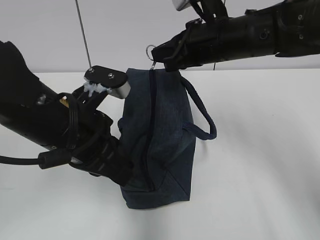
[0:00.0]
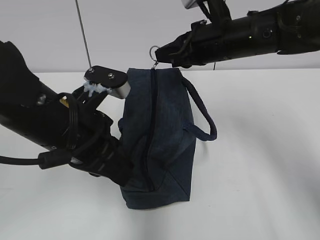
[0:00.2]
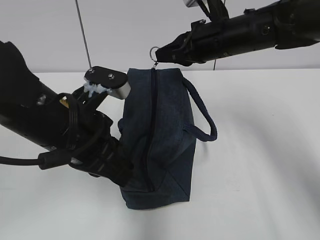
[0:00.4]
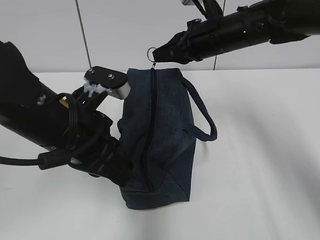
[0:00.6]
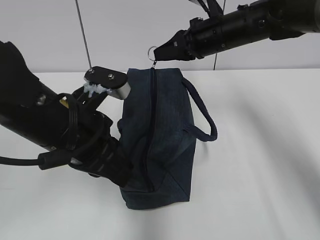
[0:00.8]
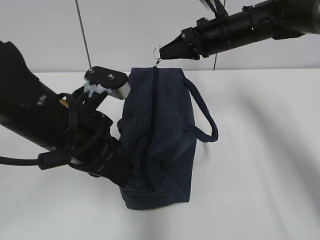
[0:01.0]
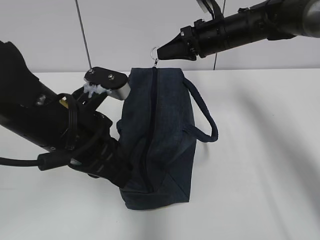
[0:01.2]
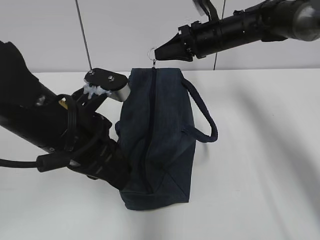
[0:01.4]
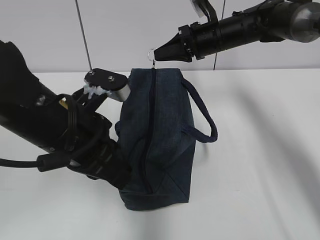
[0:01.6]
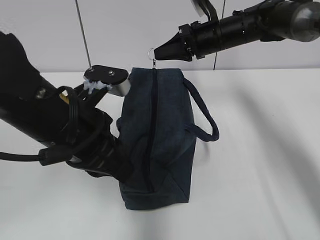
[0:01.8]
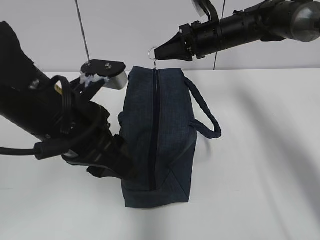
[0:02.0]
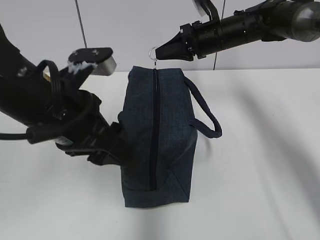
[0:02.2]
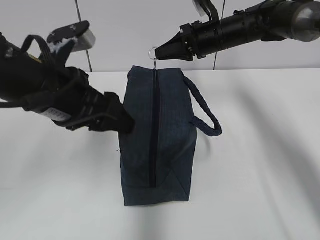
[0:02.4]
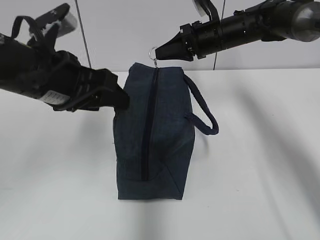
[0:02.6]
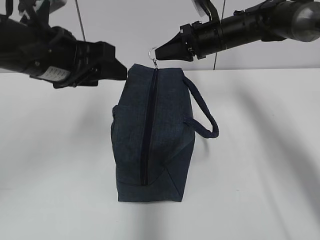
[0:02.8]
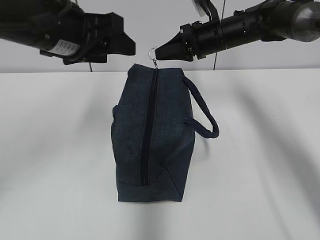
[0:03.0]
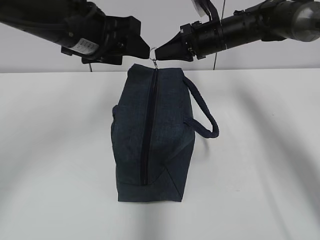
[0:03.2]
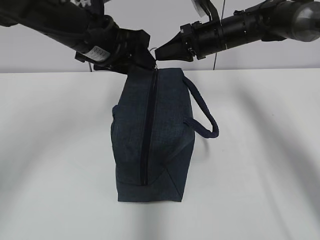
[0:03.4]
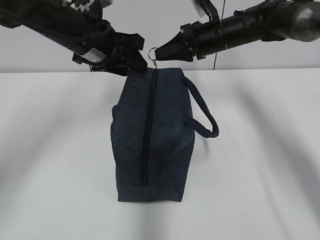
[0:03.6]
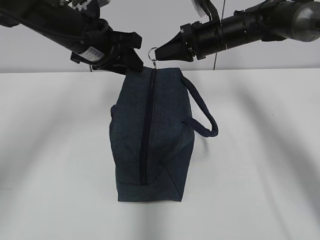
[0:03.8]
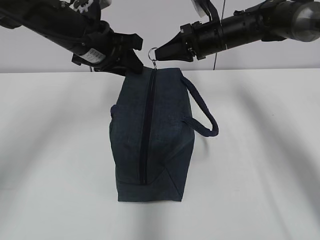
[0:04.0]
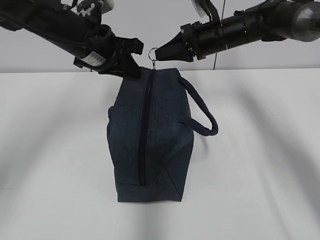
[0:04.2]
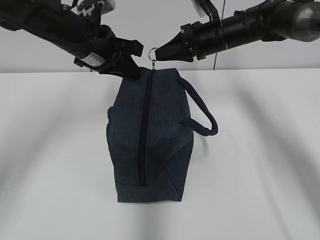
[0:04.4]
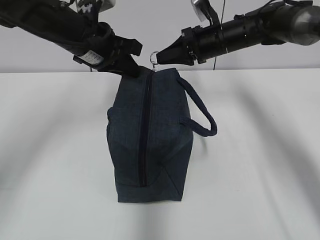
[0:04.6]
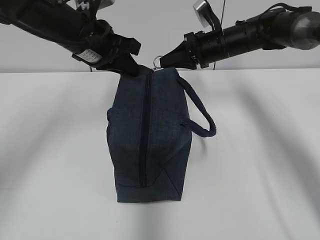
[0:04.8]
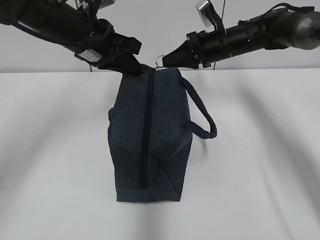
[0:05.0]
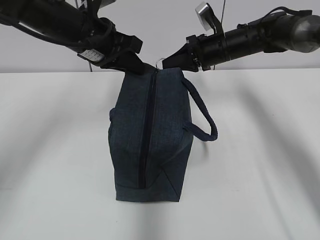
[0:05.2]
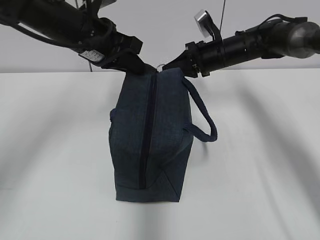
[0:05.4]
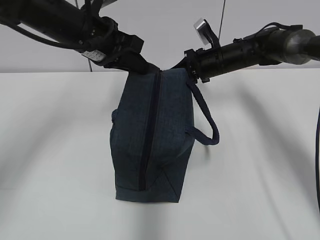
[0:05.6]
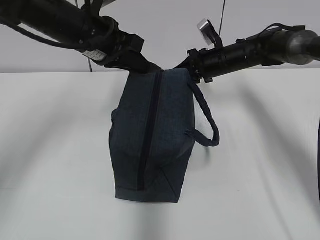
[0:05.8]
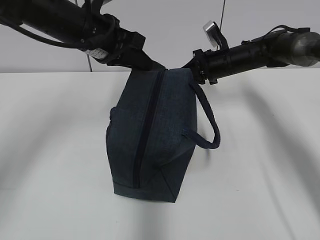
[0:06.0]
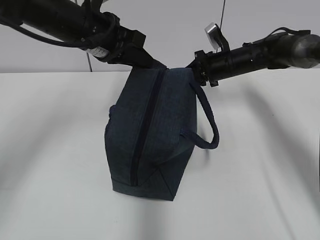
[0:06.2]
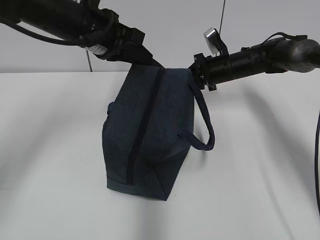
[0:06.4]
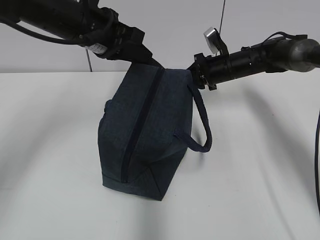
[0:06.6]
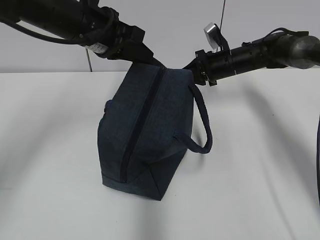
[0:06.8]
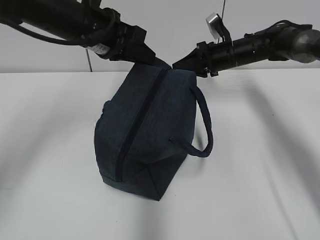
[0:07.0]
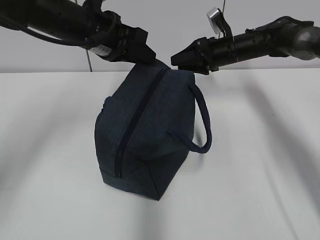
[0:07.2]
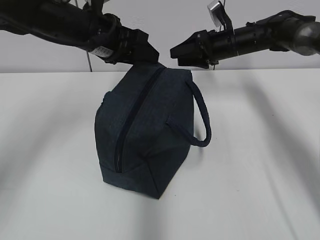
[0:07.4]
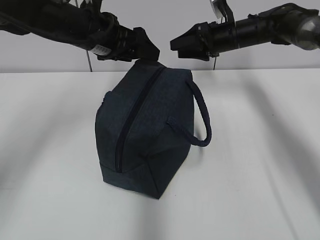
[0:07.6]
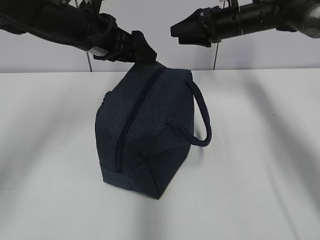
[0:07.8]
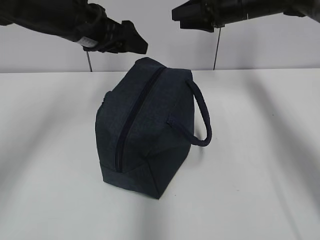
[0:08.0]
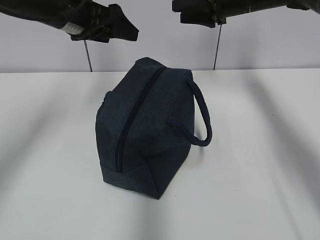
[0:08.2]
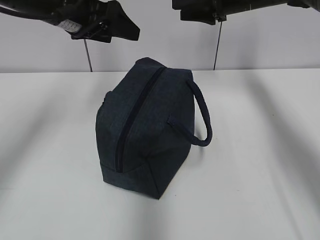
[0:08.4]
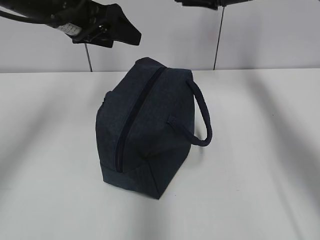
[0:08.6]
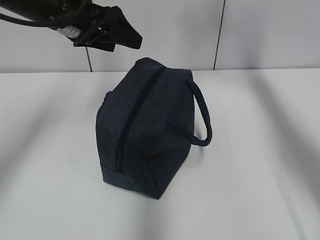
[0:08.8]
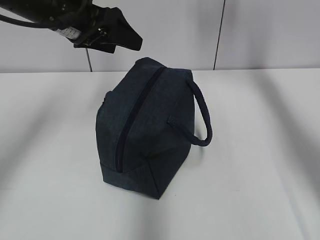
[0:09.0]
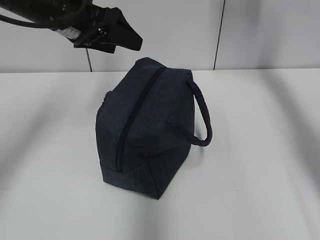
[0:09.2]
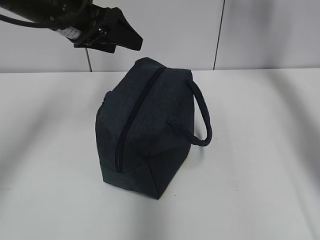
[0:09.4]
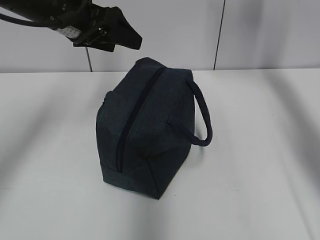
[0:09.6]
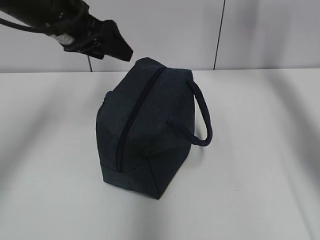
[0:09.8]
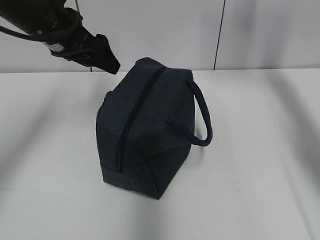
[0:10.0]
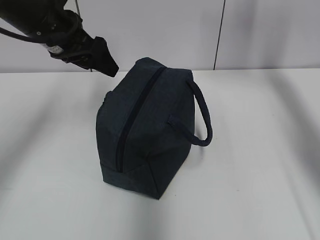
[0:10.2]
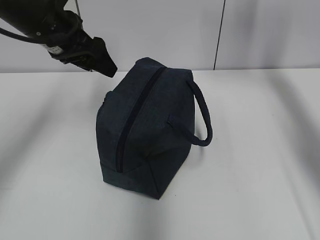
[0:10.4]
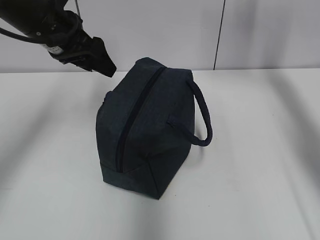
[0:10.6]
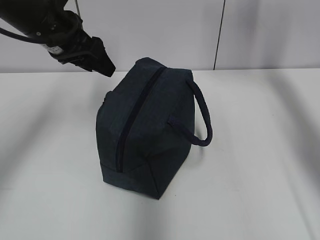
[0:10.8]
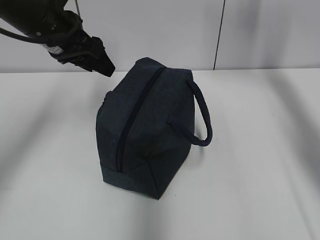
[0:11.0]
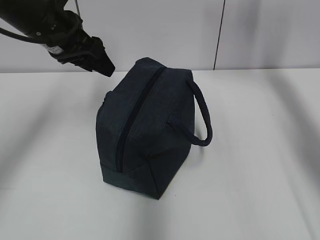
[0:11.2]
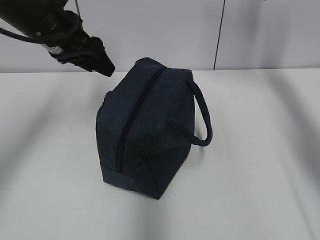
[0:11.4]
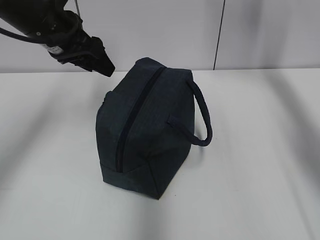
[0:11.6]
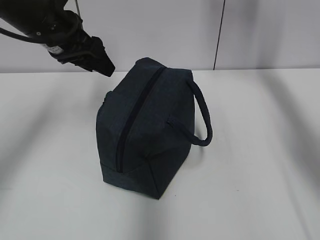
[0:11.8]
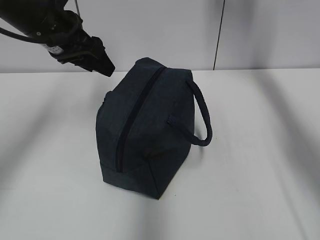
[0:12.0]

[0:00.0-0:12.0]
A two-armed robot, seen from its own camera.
0:00.0 to 0:01.6: The right gripper heads forward, covering about 10 cm.
0:01.6 to 0:03.0: The left gripper travels upward and forward by approximately 15 cm, and opens its fingers.
0:03.0 to 0:04.4: The left gripper goes some 10 cm forward, and closes up.
0:04.4 to 0:06.0: The right gripper is displaced downward by roughly 5 cm.
0:06.0 to 0:07.6: The right gripper goes approximately 5 cm upward, and opens up. The left gripper opens up.
0:07.6 to 0:09.0: The left gripper ends up about 5 cm from where it was. The right gripper heads upward, covering about 15 cm.

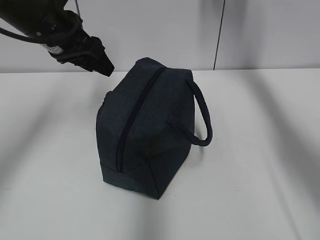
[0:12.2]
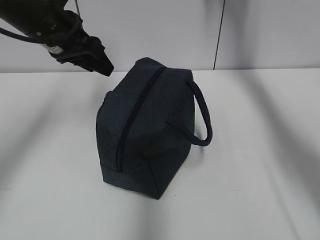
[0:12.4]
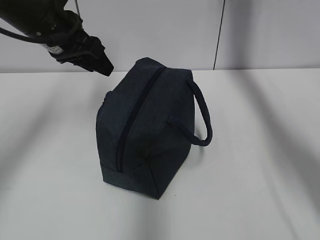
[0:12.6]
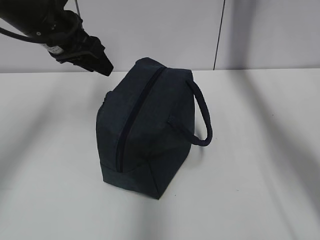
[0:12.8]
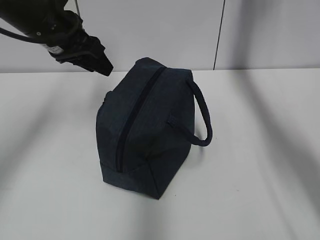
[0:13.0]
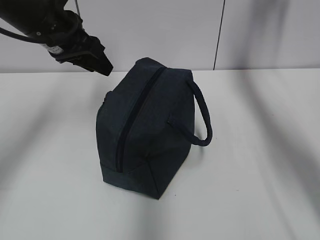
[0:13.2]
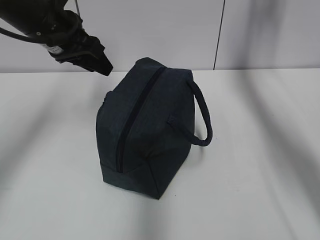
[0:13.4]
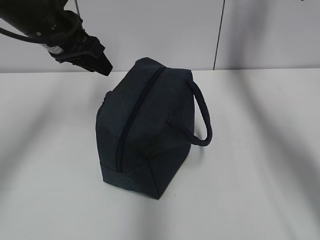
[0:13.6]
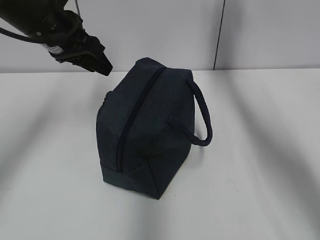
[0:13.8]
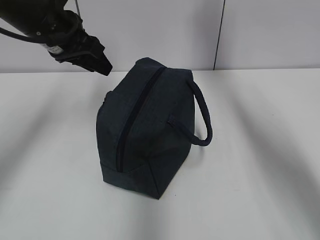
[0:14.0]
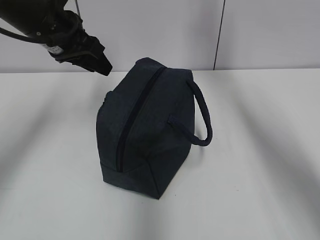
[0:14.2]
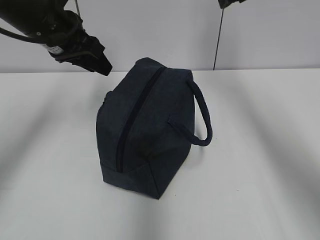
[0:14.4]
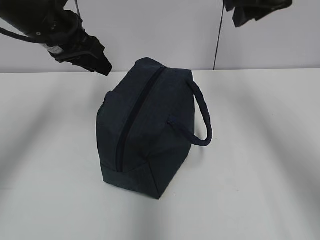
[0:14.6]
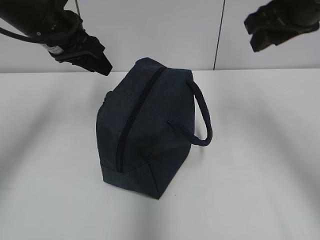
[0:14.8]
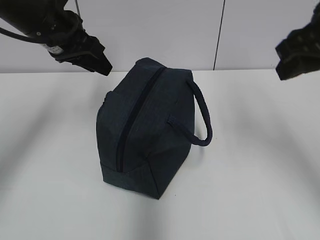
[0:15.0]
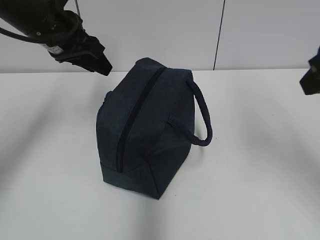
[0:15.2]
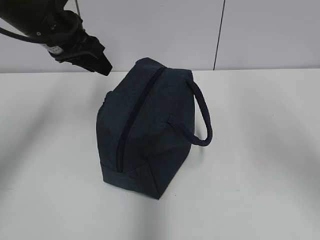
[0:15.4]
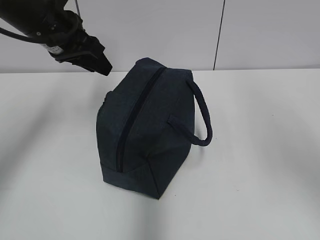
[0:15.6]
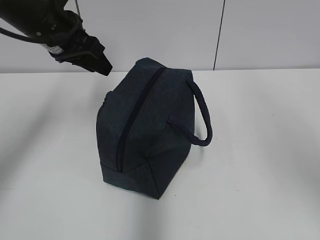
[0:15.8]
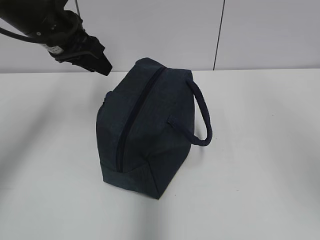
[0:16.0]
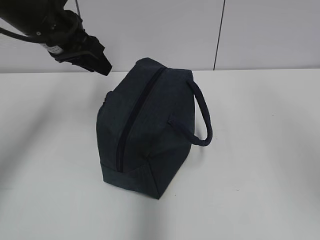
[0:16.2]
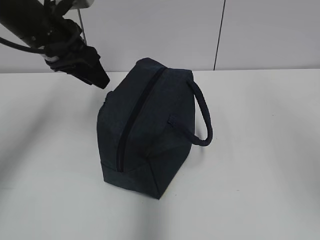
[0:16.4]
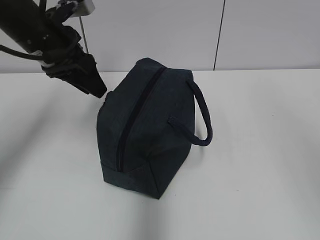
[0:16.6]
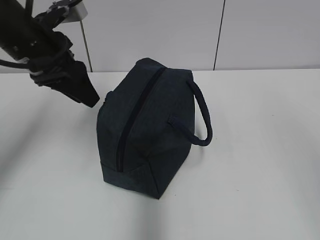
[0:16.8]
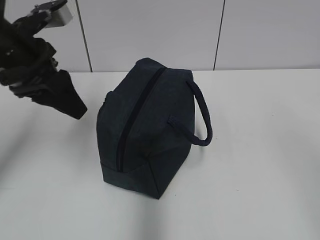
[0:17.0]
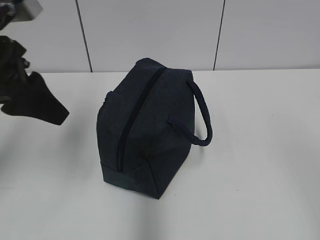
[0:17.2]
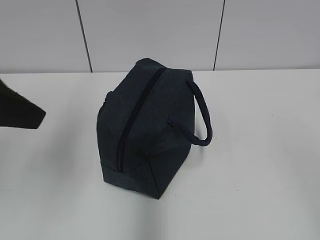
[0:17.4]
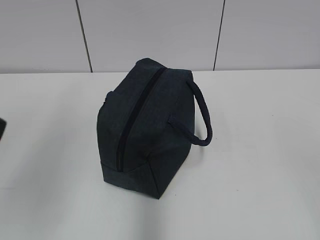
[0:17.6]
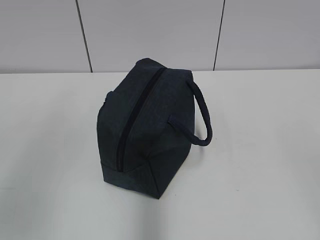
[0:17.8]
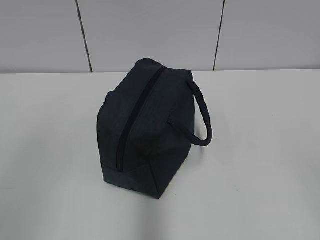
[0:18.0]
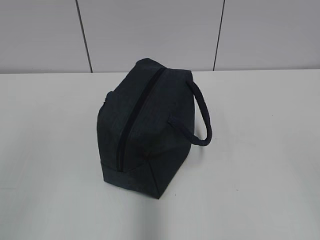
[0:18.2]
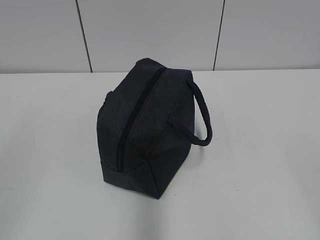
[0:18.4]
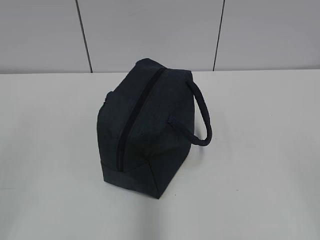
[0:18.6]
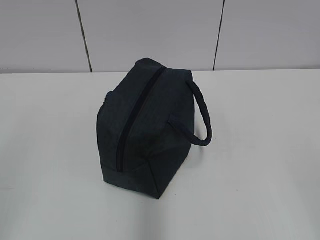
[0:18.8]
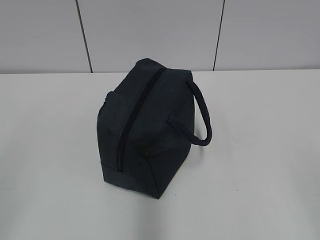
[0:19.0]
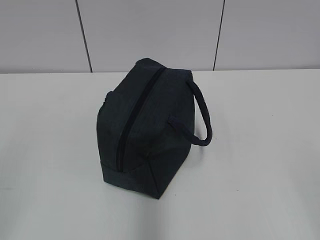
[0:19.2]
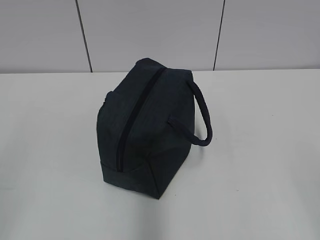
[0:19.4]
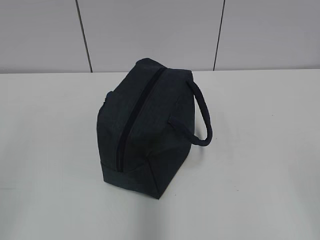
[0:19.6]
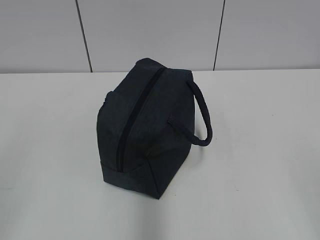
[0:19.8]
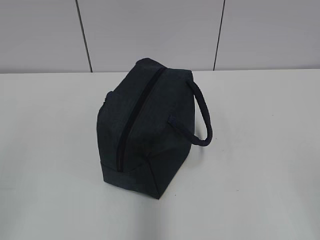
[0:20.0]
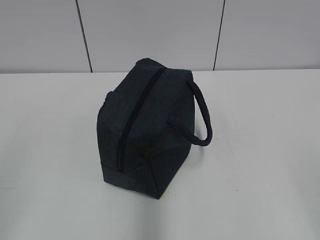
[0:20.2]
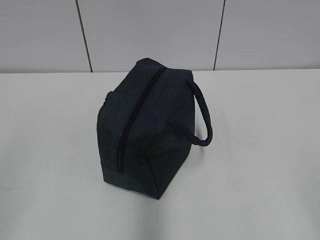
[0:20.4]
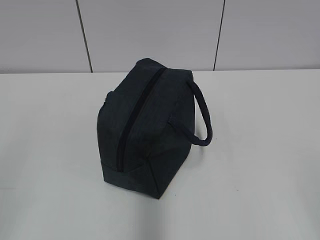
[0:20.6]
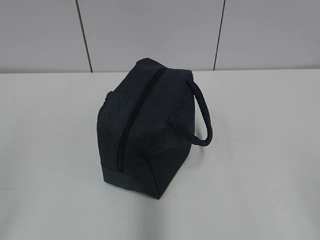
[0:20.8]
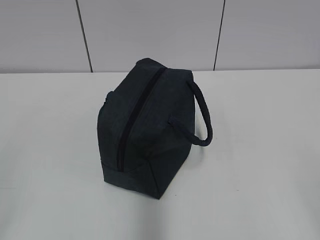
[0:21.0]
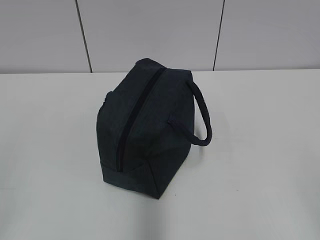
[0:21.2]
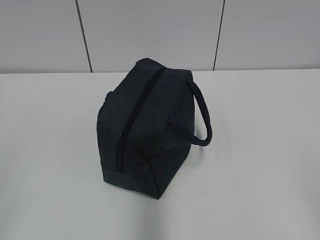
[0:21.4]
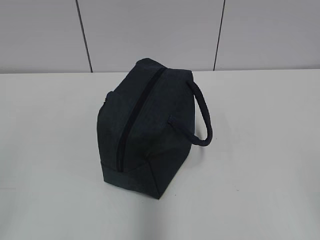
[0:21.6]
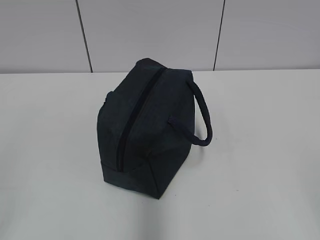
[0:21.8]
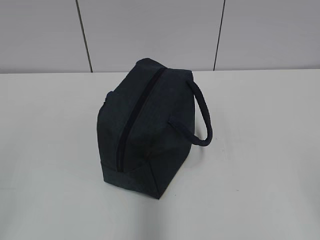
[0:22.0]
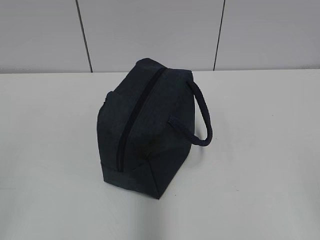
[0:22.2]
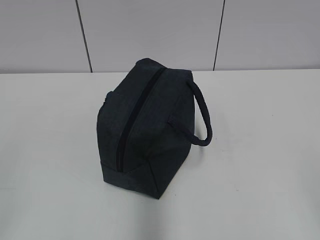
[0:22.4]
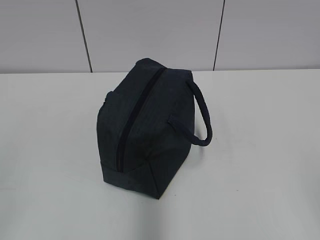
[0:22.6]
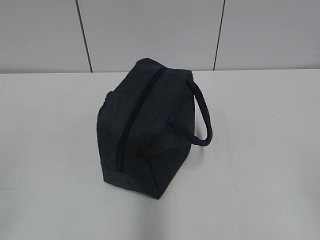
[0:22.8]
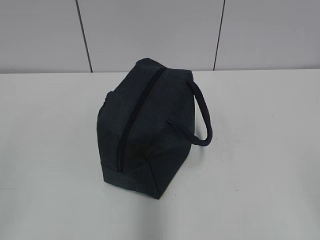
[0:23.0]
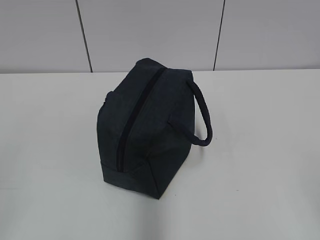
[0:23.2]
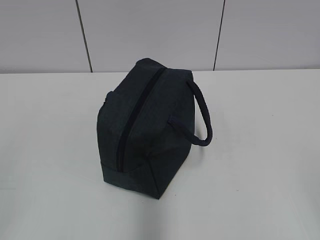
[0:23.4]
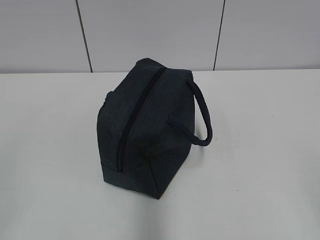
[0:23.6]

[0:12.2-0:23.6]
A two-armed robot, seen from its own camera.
0:13.6 to 0:15.0: The right gripper shifts some 30 cm backward.
0:15.0 to 0:16.4: The right gripper moves backward and upward, approximately 20 cm.
0:16.4 to 0:17.8: The left gripper travels backward by approximately 30 cm.
0:22.2 to 0:23.6: Both grippers stay put.
